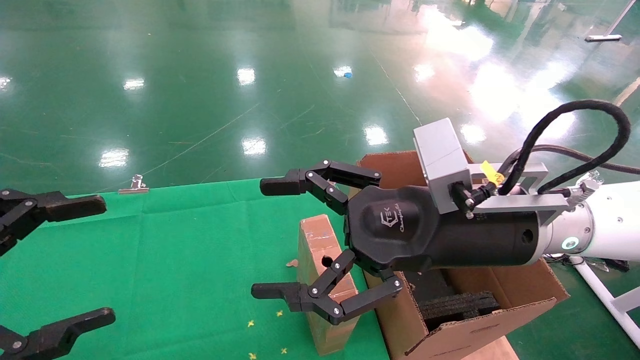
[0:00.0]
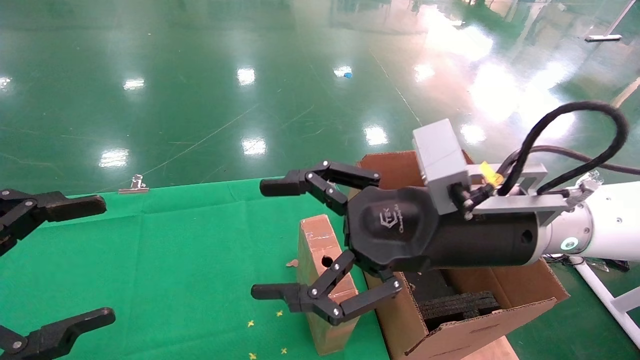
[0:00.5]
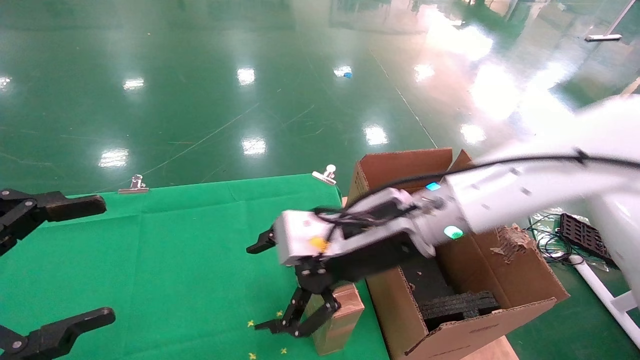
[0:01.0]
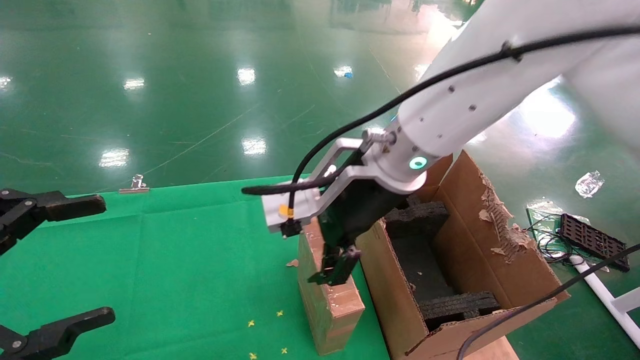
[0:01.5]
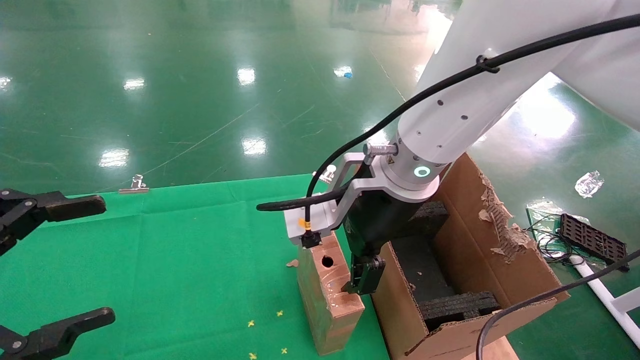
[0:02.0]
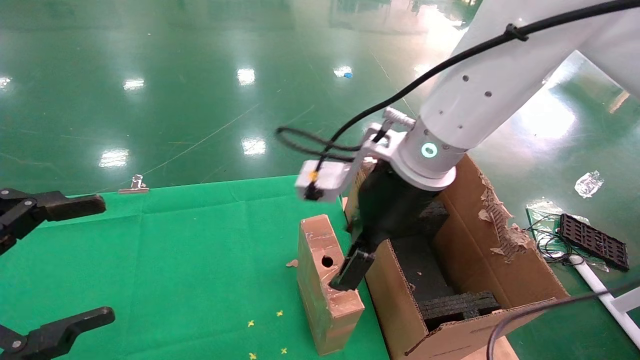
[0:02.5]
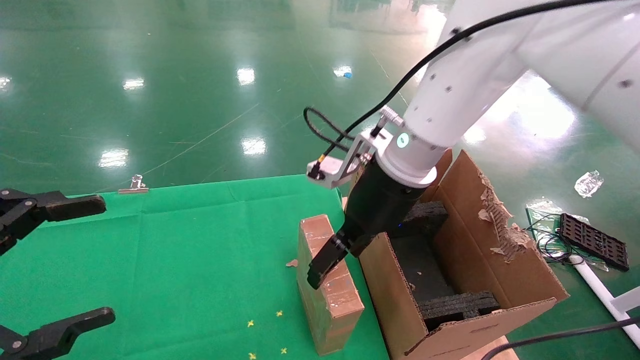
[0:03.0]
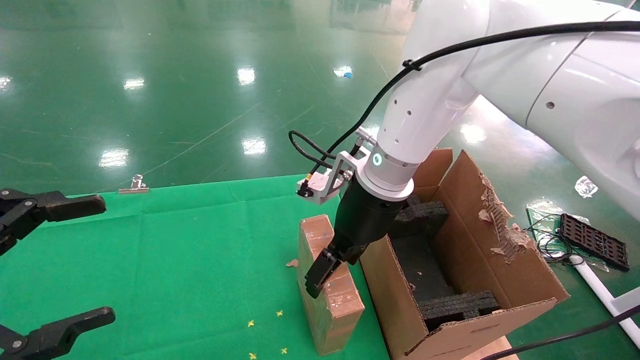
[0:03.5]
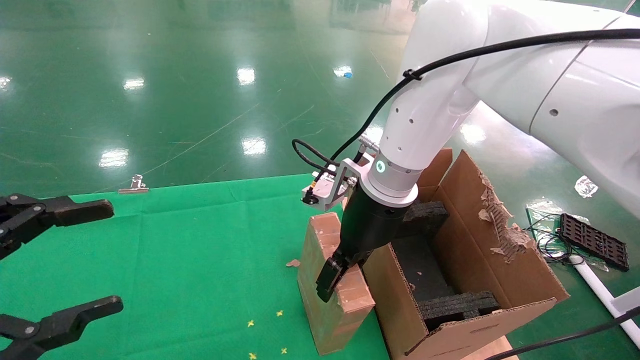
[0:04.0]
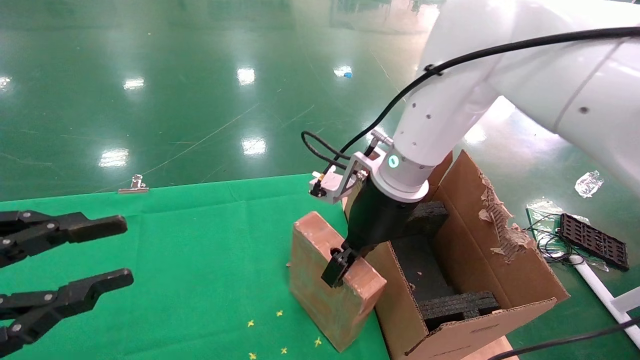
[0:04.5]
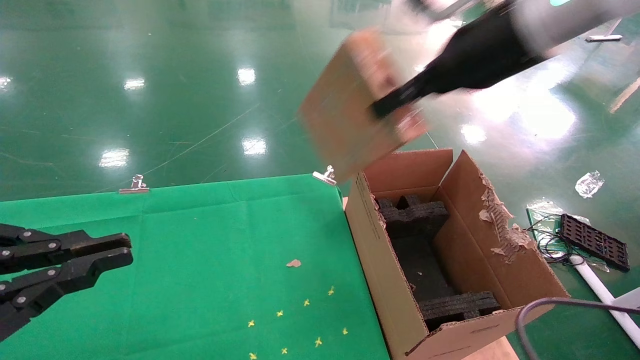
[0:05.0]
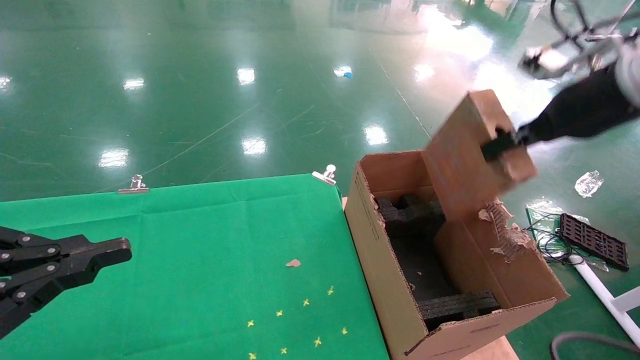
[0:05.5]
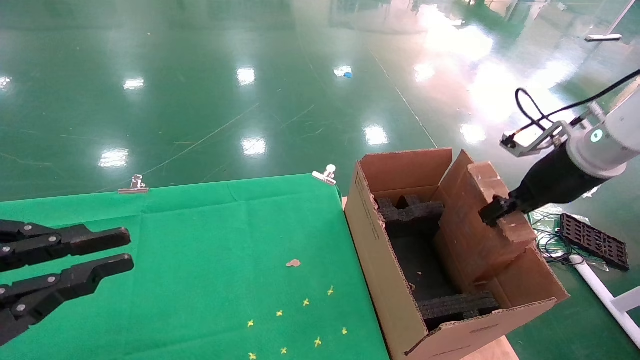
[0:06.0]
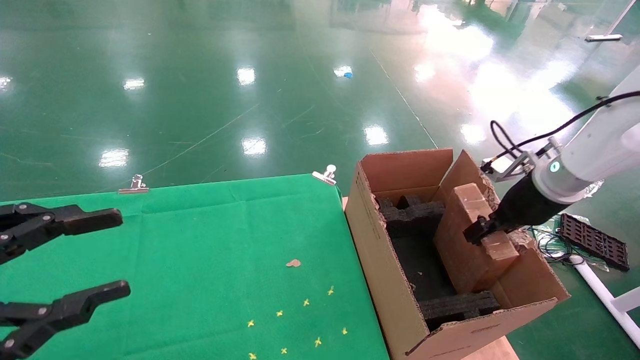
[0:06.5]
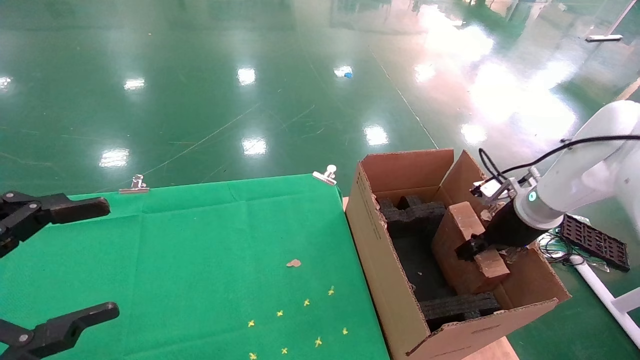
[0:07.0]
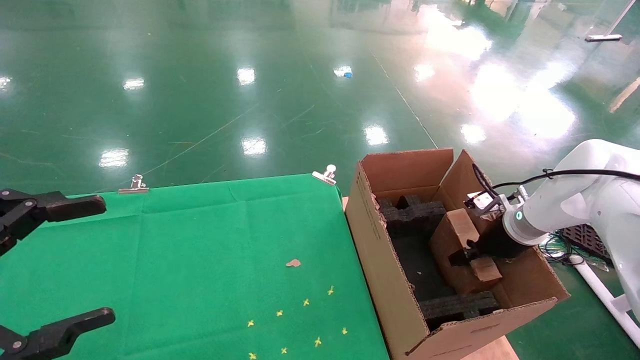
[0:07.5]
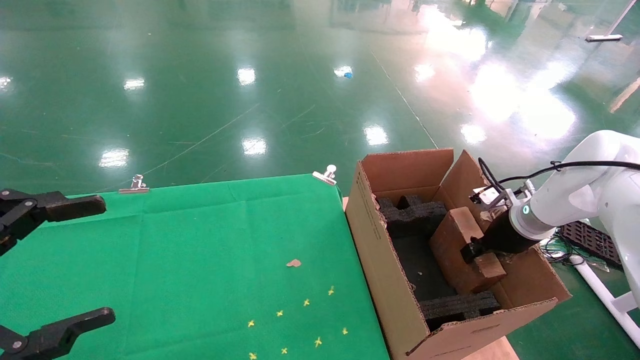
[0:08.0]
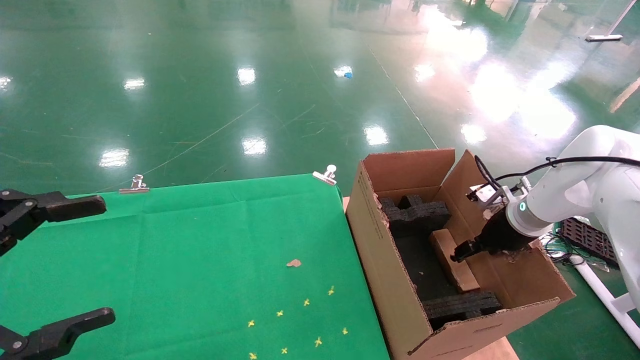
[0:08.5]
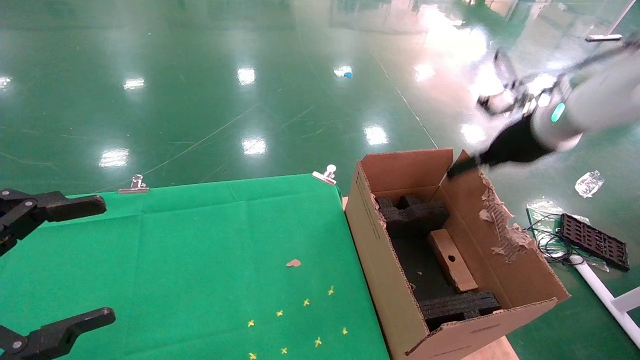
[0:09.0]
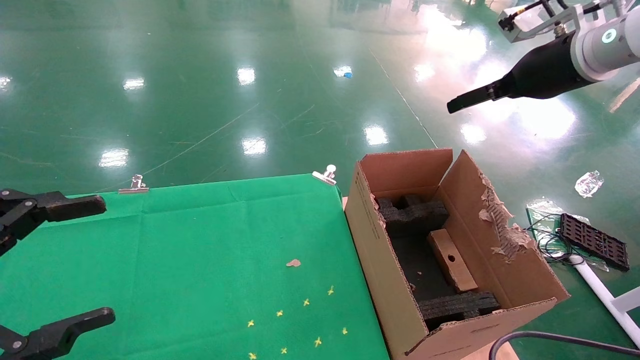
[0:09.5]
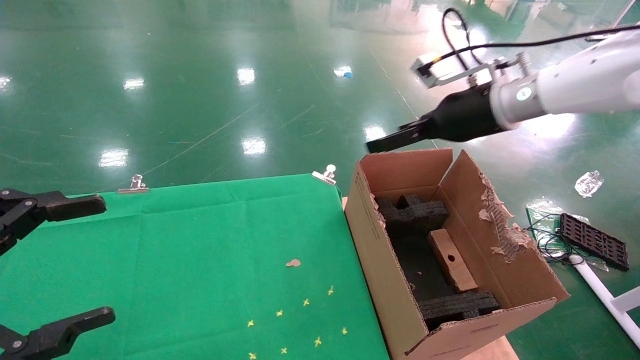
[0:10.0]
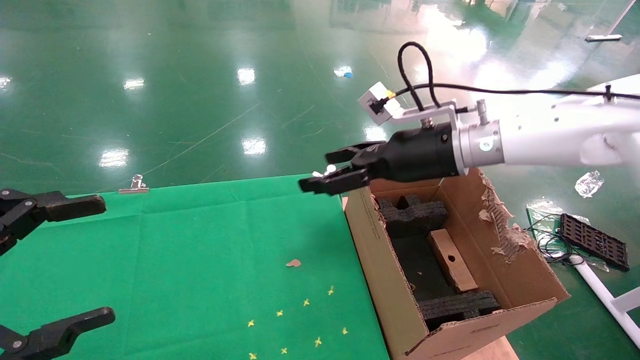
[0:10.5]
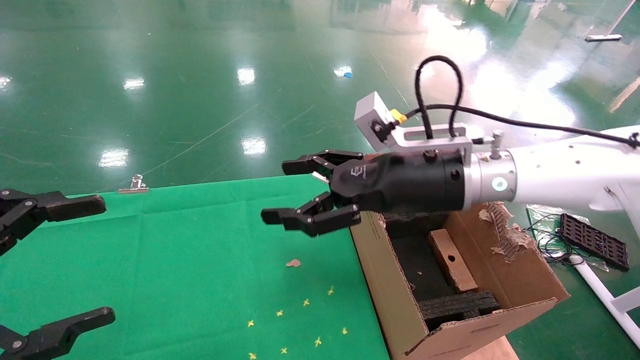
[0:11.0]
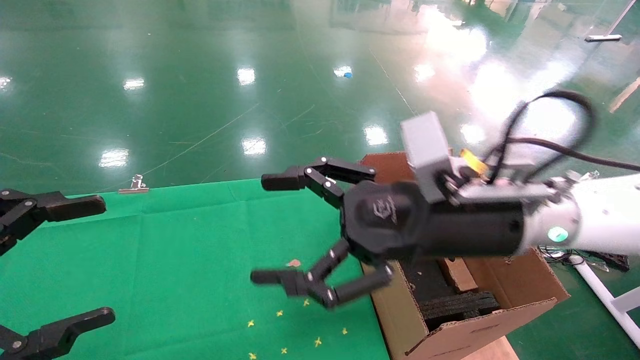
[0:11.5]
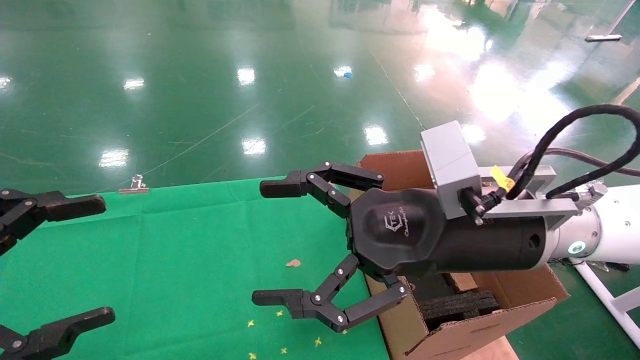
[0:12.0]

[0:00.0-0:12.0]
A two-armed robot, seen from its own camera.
Task of the whole recording: using a robotic arm to pick up a cardboard box and palace it the carton.
Step, 0:00.5 to 0:04.0: Pick up the mouse and the power cord paper box.
Step, 0:04.5 to 0:08.5: Place the mouse and the power cord paper box into the container.
0:00.0 to 0:02.0: The right gripper is displaced to the left and forward by roughly 10 cm.
0:02.0 to 0:04.0: The right gripper is displaced forward by about 5 cm.
0:04.0 to 0:06.0: The left gripper closes. Meanwhile the right gripper heads to the right, covering some 30 cm, and closes.
0:06.0 to 0:08.0: The left gripper opens its fingers. The right gripper shifts roughly 15 cm downward and forward.
0:08.0 to 0:10.0: The right gripper heads upward and to the left, covering roughly 20 cm, and opens its fingers.
0:10.0 to 0:12.0: The right gripper travels backward, to the left and downward by approximately 20 cm.

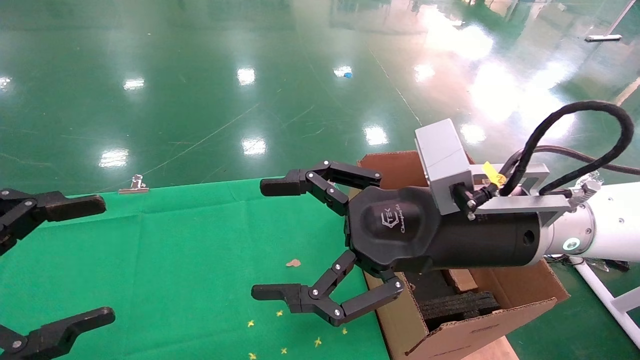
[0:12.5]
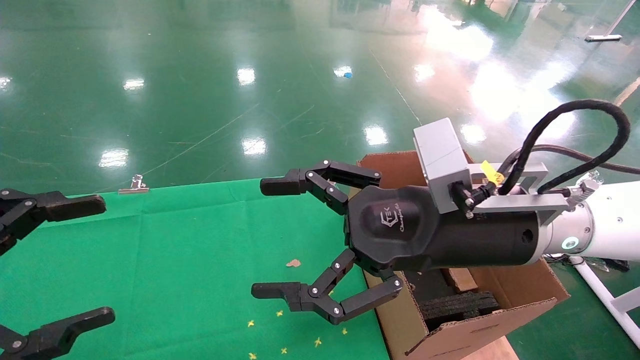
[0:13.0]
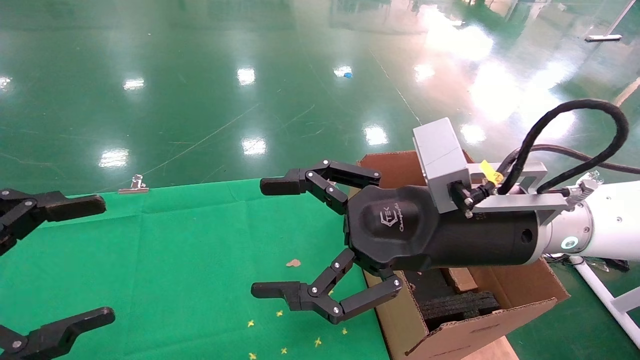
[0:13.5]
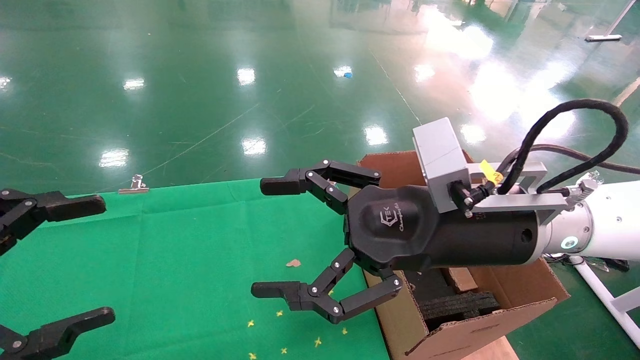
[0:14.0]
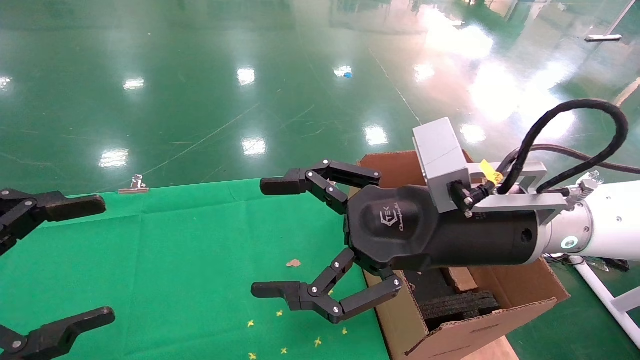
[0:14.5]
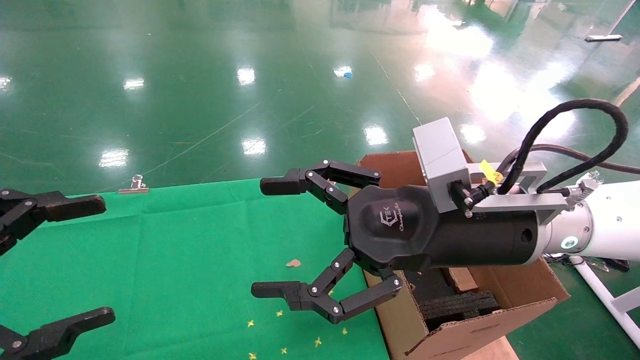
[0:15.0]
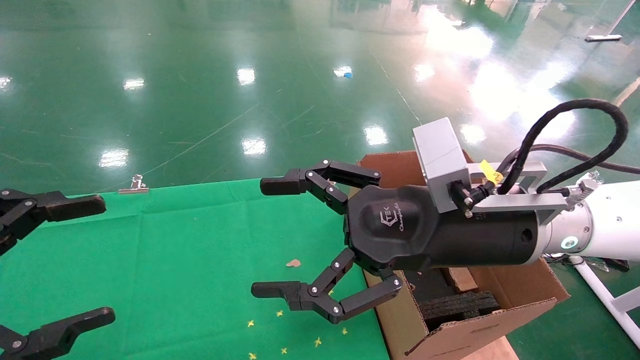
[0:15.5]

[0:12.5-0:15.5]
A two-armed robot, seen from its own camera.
Task of the whole recording: using a robotic arm to pick up a cardboard box and palace it the carton.
0:12.5 to 0:15.5: Both grippers stay about where they are.
